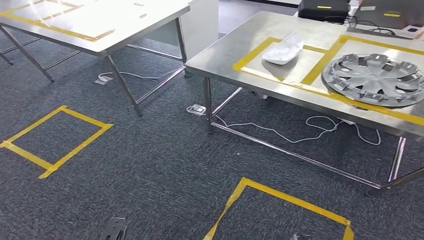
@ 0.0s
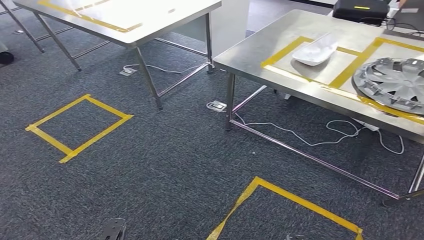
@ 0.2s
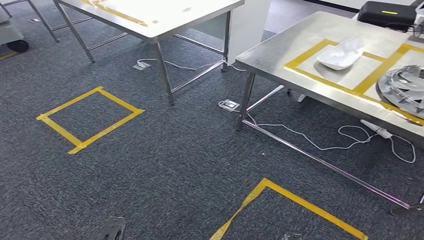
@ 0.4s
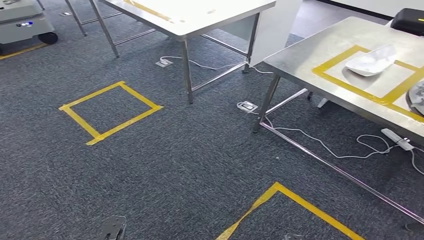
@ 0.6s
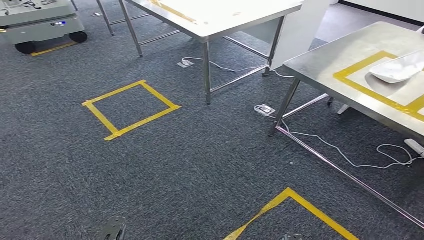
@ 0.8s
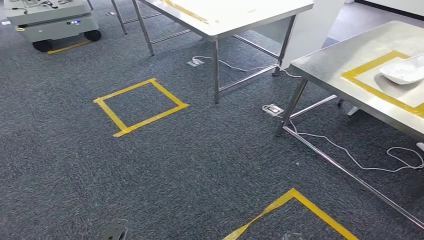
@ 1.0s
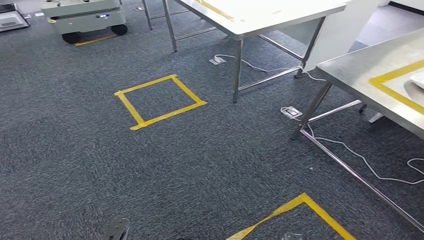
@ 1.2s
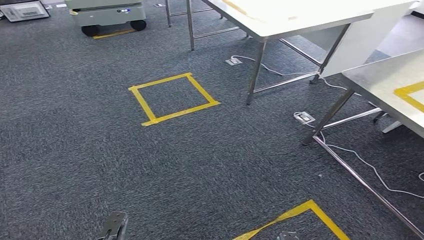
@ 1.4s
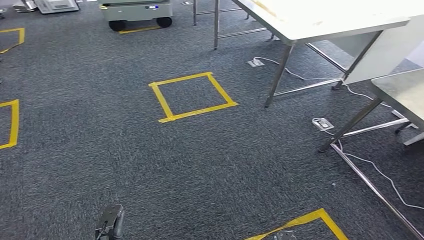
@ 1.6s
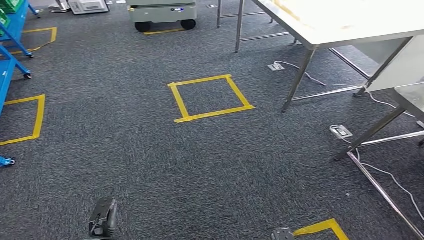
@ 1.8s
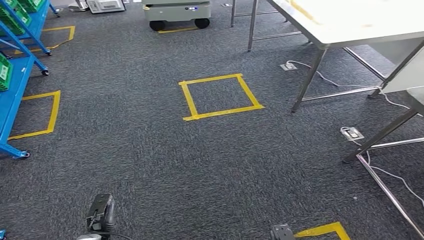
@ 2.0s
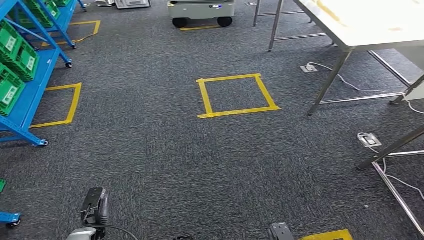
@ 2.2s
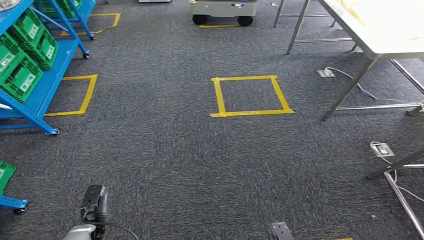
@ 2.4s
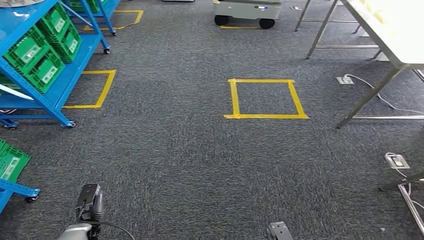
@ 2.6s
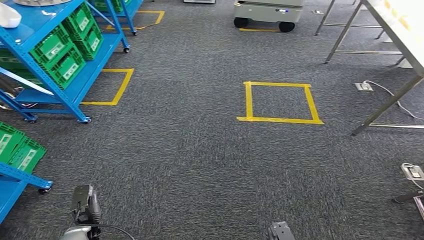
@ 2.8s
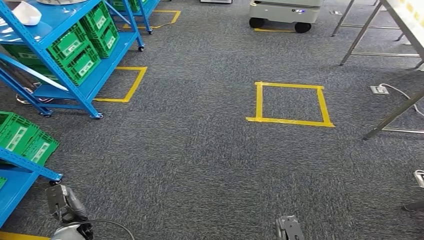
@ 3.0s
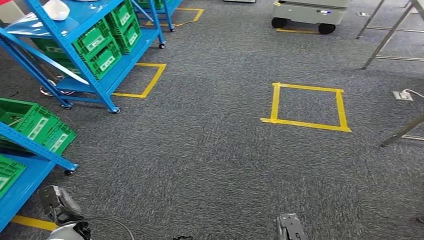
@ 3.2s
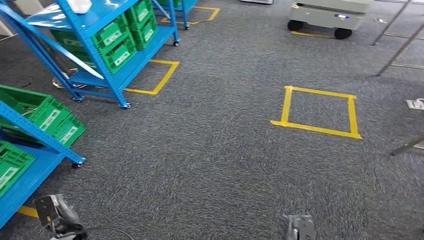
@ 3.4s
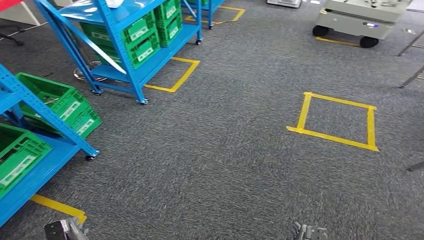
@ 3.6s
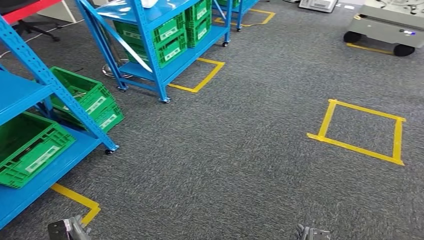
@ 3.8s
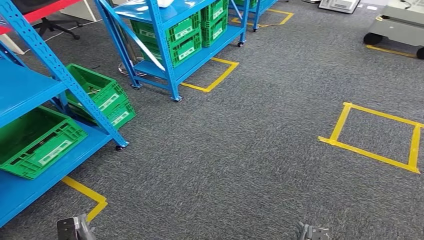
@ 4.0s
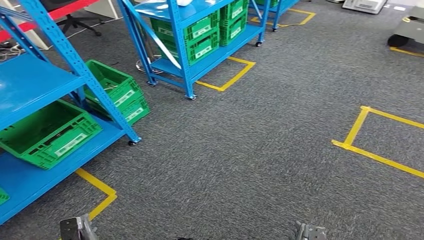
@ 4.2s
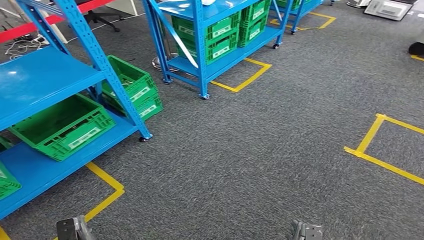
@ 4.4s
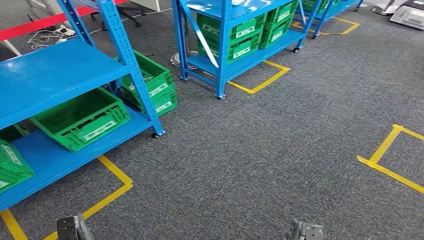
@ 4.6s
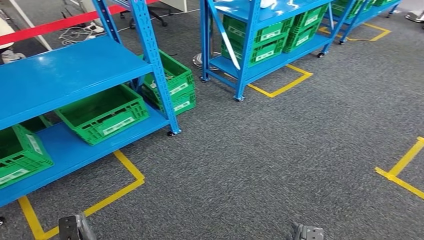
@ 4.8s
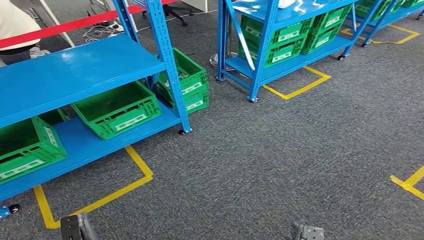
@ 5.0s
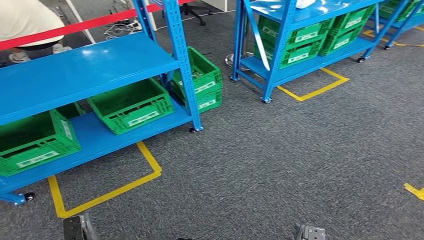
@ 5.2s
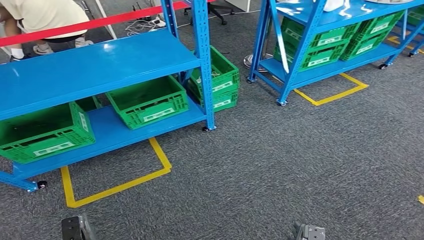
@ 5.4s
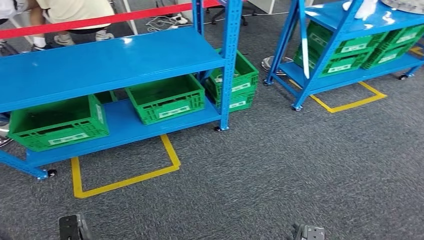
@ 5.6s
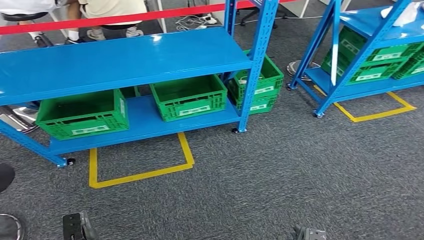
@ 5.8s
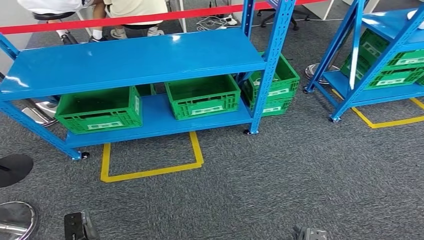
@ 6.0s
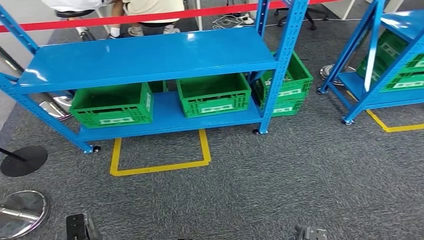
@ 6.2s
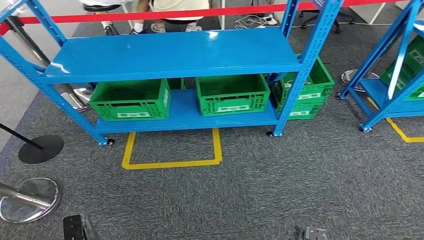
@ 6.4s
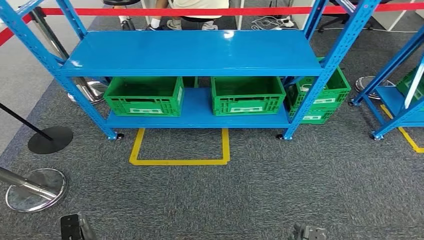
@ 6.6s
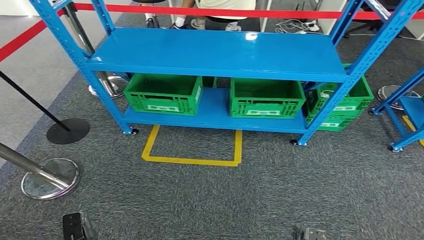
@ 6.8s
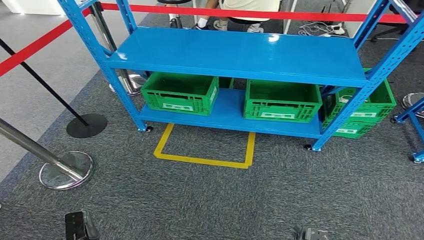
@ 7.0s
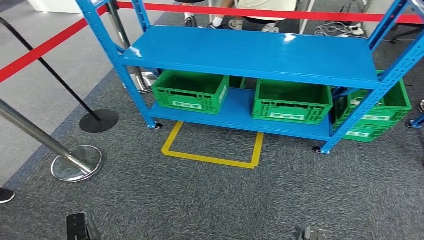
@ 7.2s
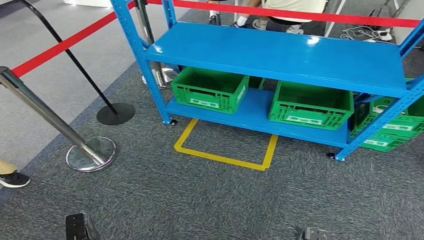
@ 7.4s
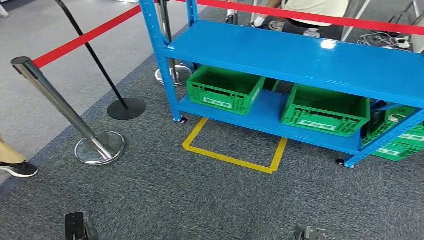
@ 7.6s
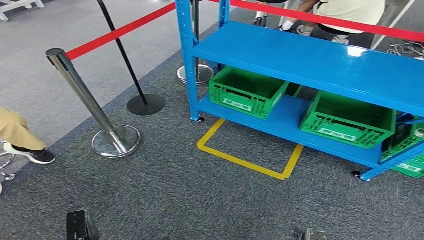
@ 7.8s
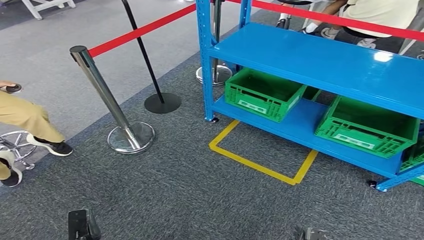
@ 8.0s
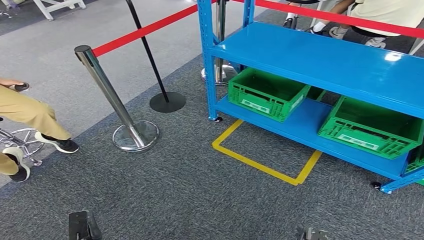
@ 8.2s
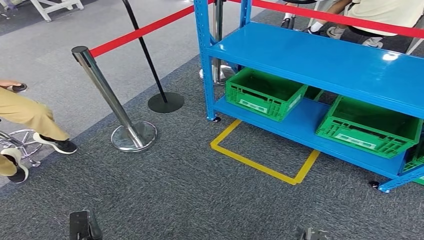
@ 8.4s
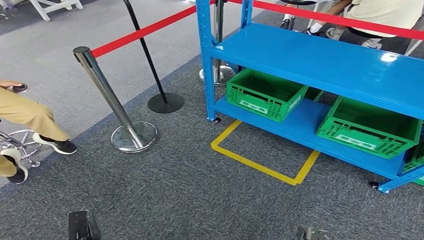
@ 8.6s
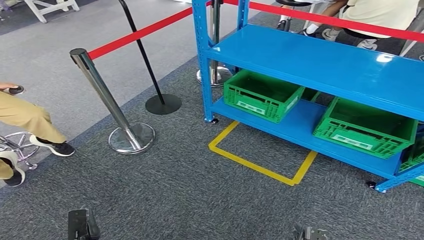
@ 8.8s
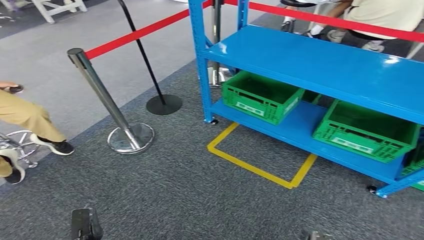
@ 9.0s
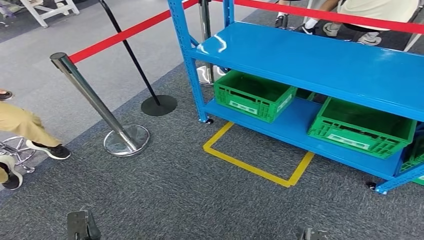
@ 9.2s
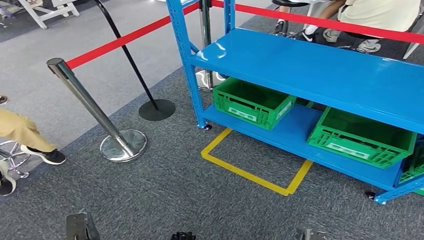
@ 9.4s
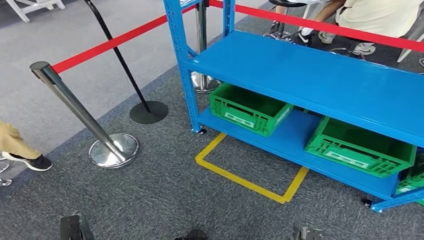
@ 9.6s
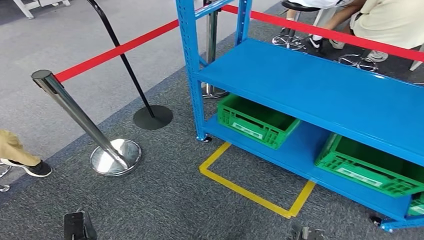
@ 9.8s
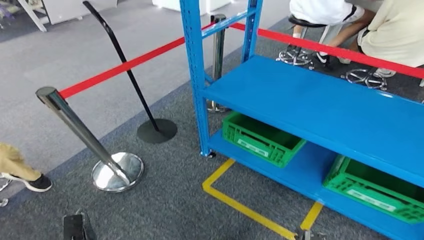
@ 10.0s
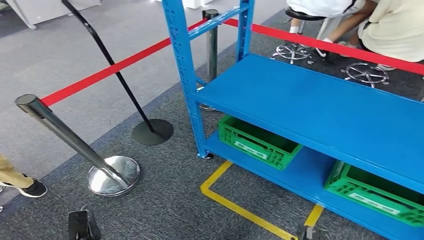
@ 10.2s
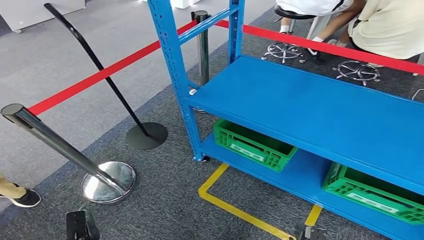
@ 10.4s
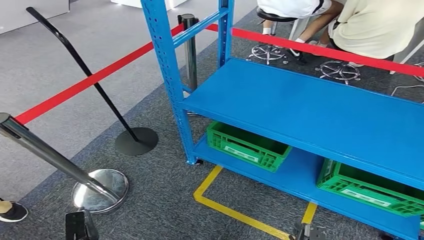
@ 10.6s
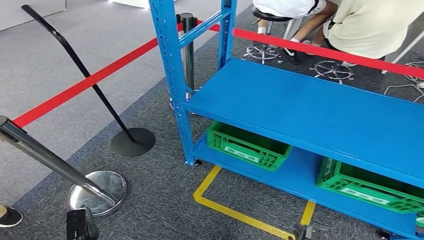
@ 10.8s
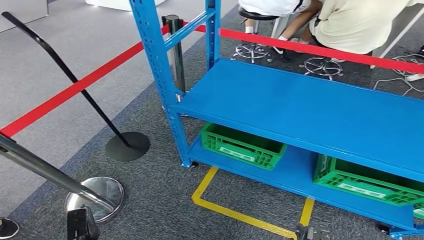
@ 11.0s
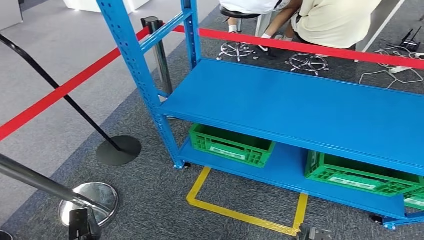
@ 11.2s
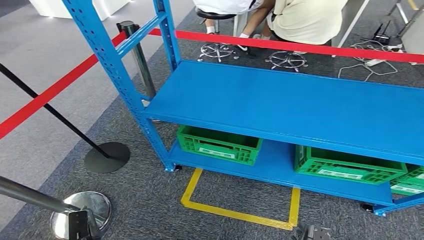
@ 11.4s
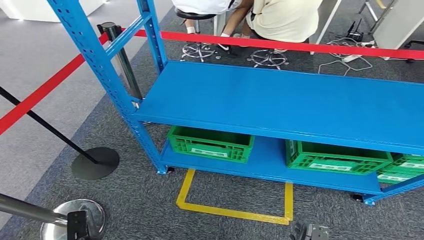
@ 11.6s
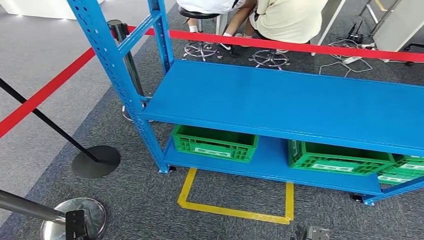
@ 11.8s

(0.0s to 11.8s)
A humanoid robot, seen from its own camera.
Step, 0.0s - 11.8s: Return to the initial position at the workbench.

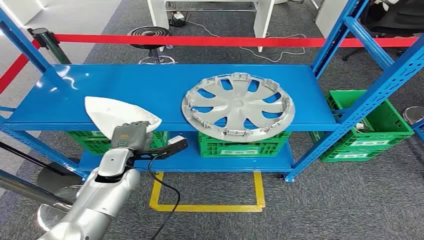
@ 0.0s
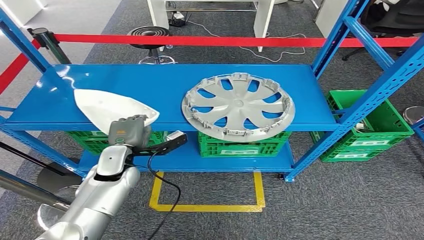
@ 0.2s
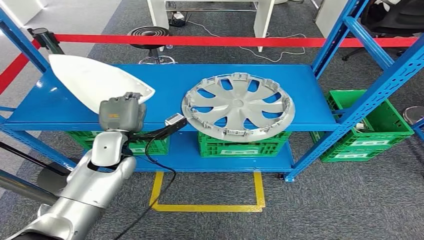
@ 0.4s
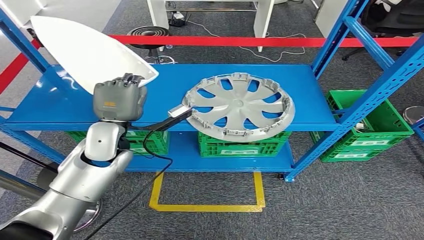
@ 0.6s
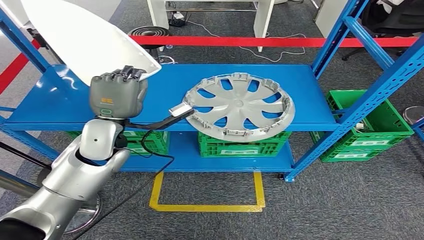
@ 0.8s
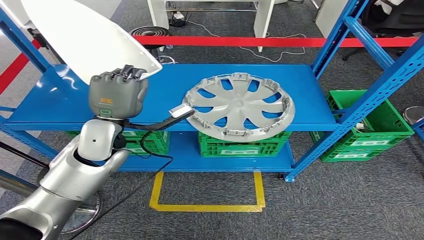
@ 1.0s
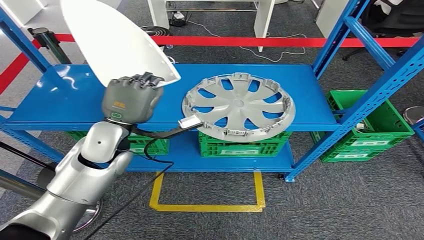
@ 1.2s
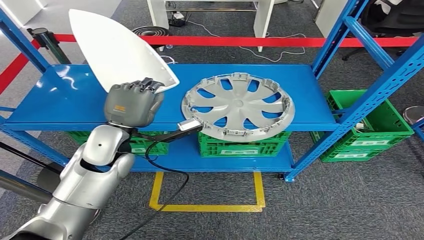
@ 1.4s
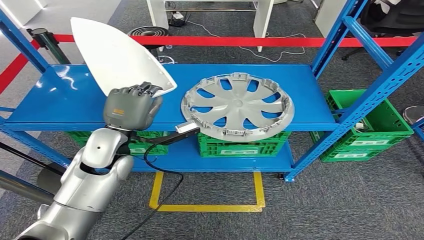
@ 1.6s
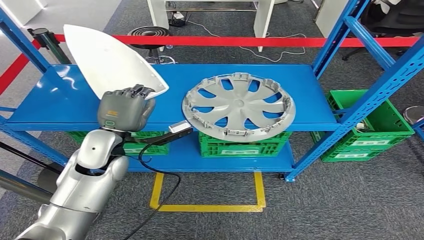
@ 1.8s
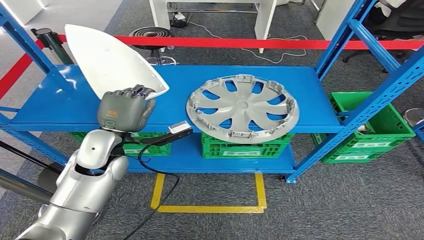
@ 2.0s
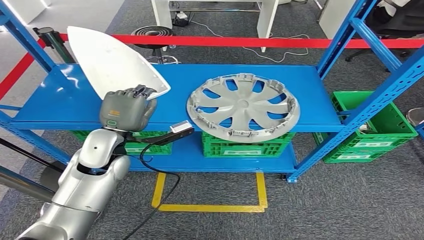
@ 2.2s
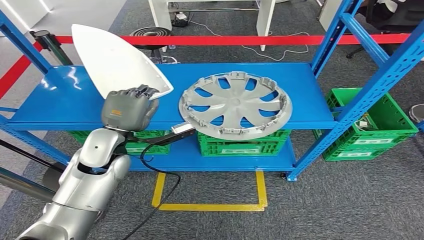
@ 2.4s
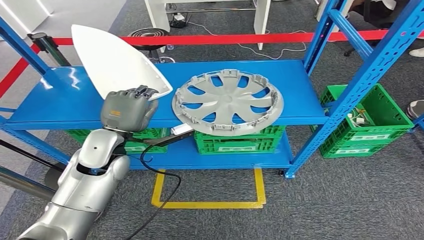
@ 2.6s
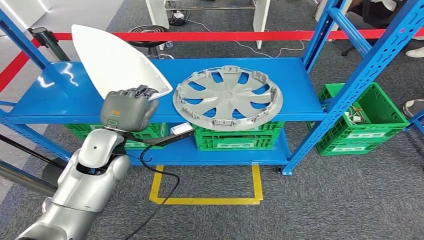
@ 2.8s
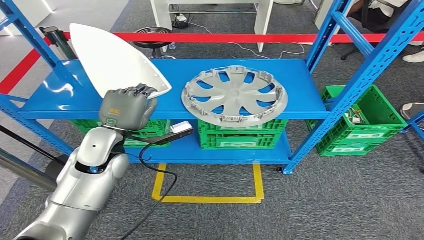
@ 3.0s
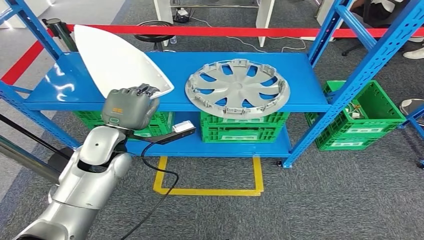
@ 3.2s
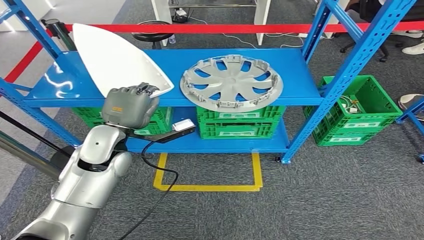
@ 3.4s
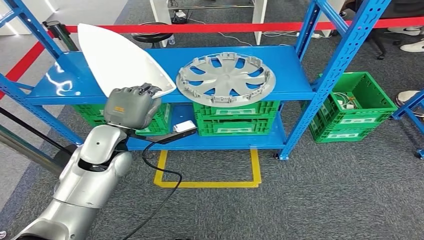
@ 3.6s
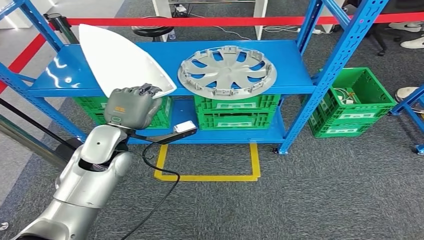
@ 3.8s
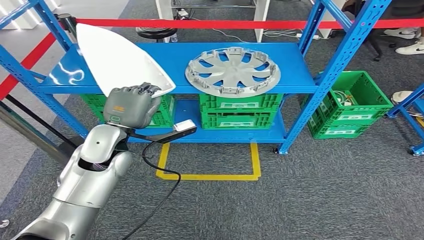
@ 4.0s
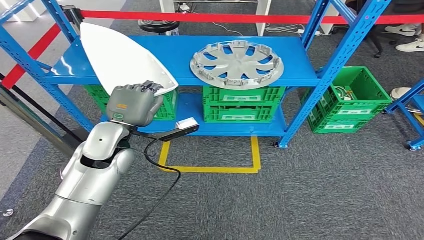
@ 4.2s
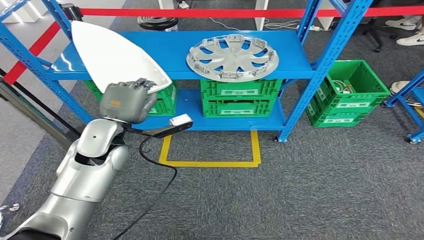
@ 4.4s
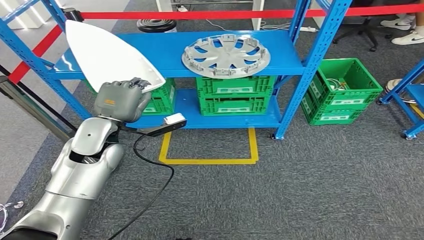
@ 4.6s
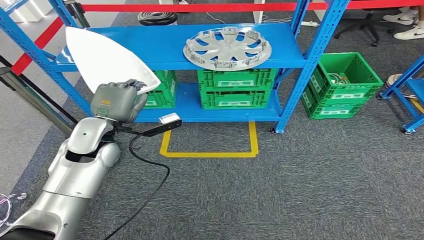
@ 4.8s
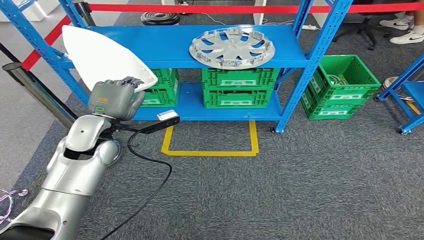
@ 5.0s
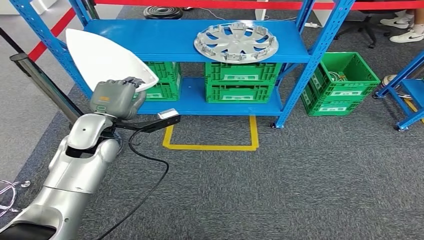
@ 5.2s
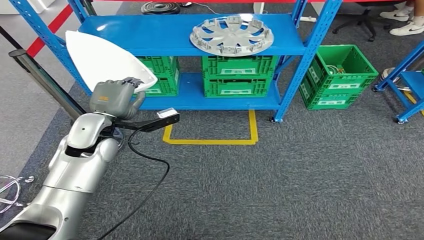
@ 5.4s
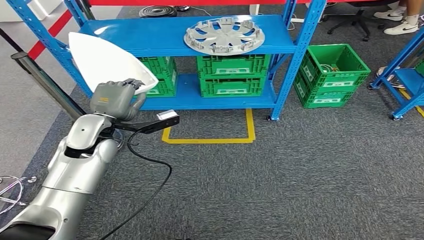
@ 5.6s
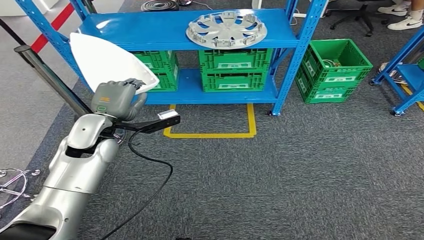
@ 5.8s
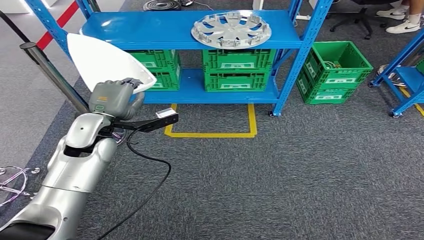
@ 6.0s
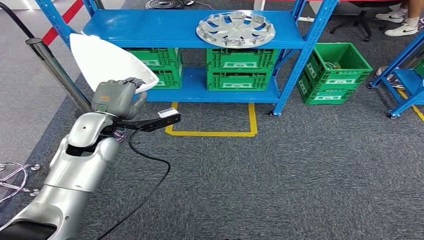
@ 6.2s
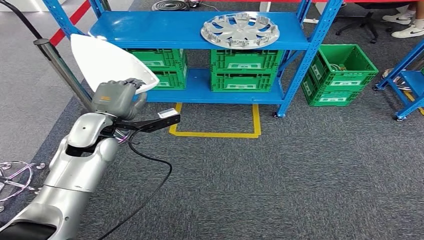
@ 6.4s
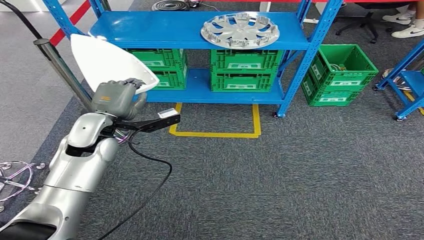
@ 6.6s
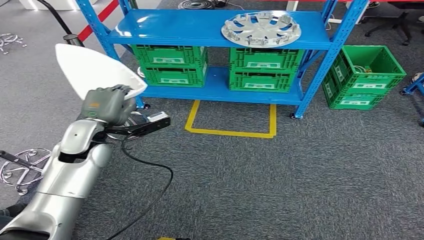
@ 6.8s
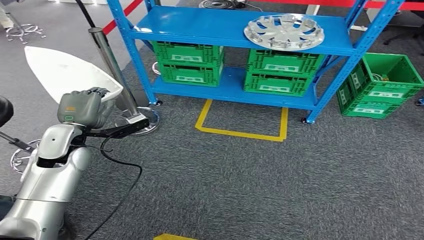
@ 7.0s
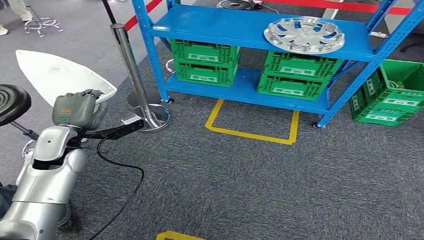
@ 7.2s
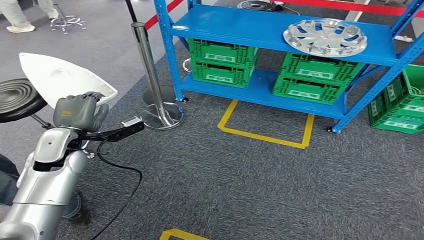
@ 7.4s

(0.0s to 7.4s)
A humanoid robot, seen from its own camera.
Step, 0.0s - 1.6s: Pick up the small component from the shelf.
